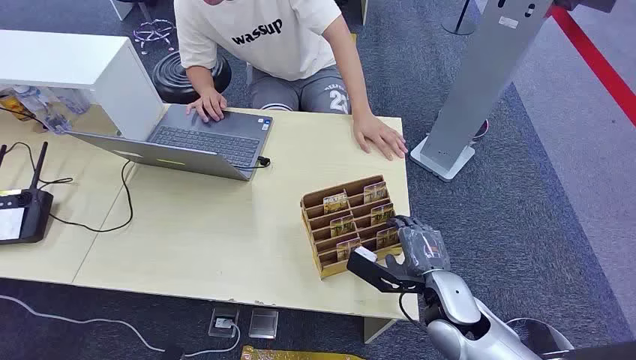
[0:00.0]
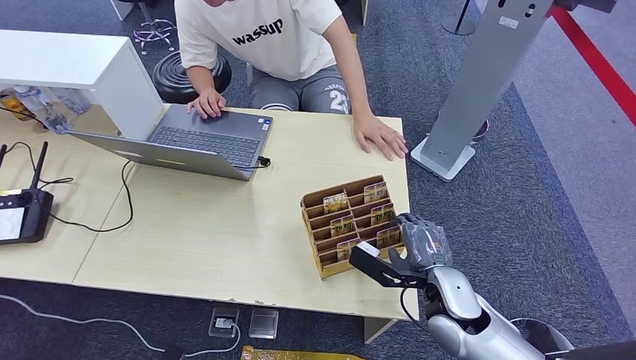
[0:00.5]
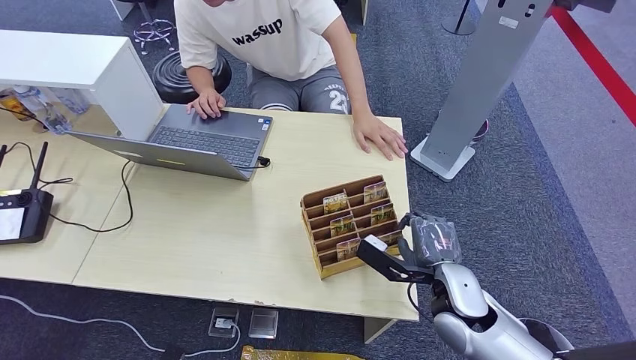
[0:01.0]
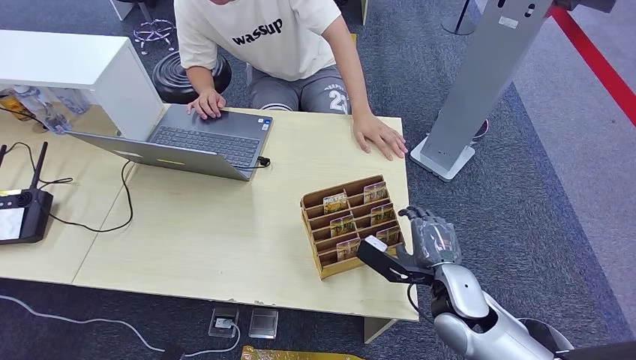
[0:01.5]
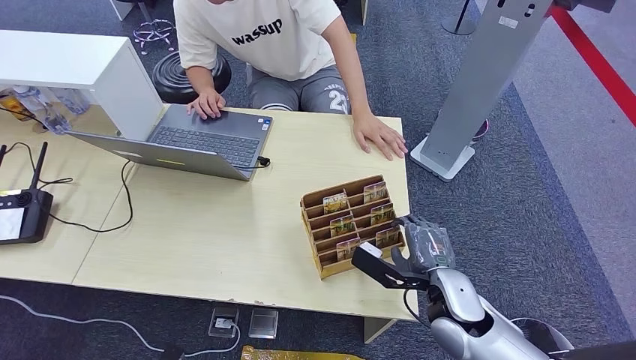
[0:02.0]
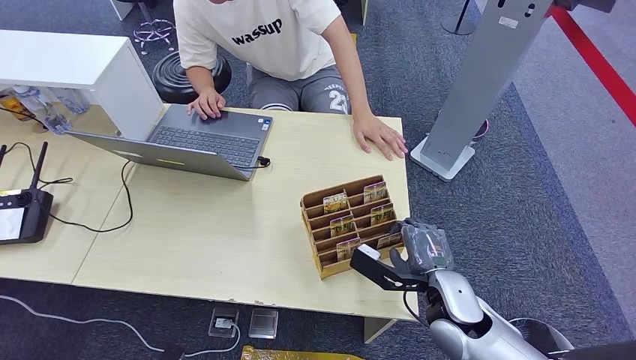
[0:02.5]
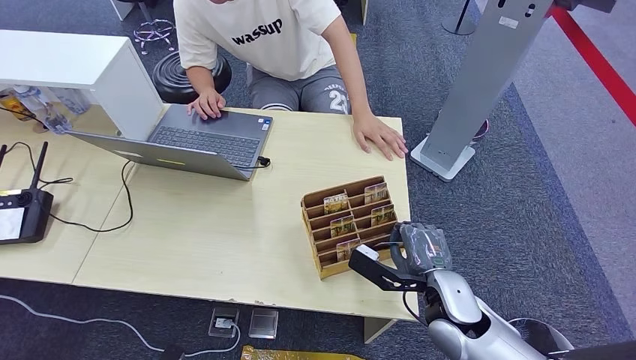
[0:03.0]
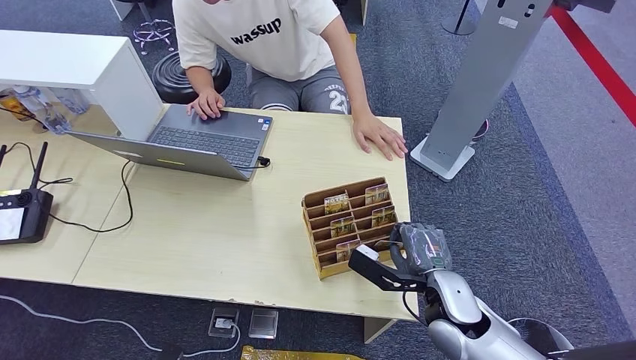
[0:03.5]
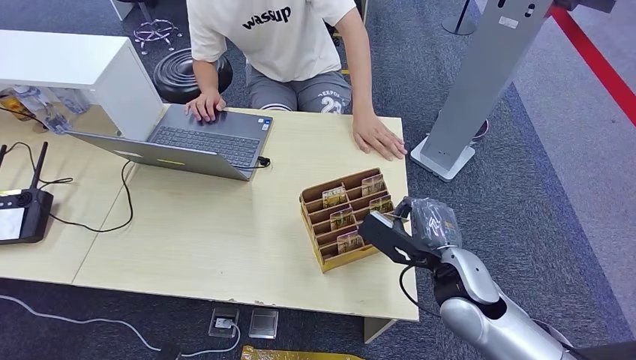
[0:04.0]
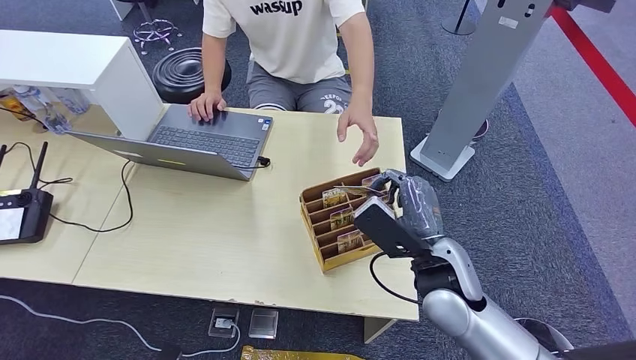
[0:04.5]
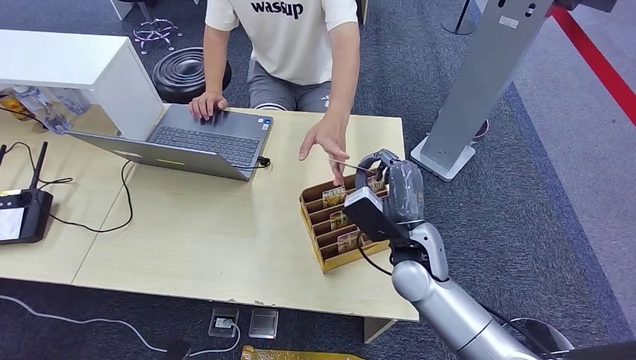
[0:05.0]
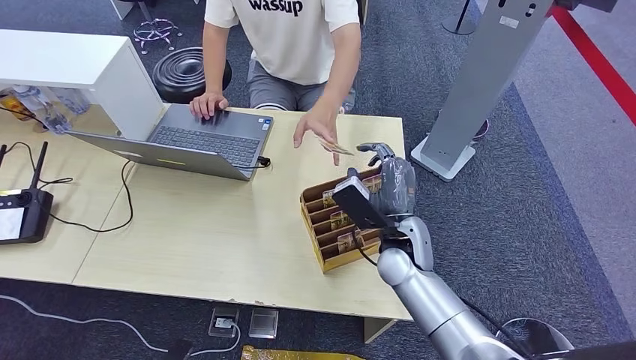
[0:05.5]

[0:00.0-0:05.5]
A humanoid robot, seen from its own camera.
Step, 0:00.0 to 0:04.0: Pick up the room card from the card holder.
Step, 0:04.5 to 0:05.5: Hand the room card to the target.
0:02.0 to 0:03.5: Neither hand changes place.
0:03.5 to 0:05.5: The right hand heads forward and to the left, covering approximately 10 cm.

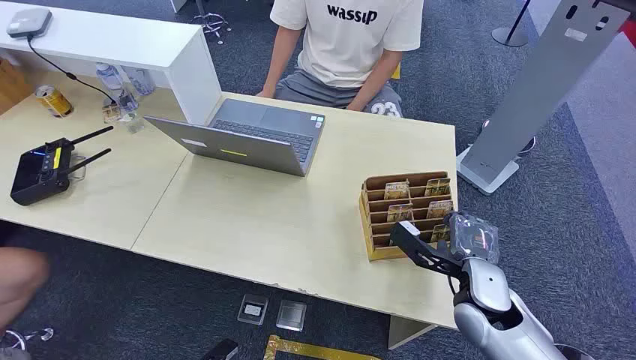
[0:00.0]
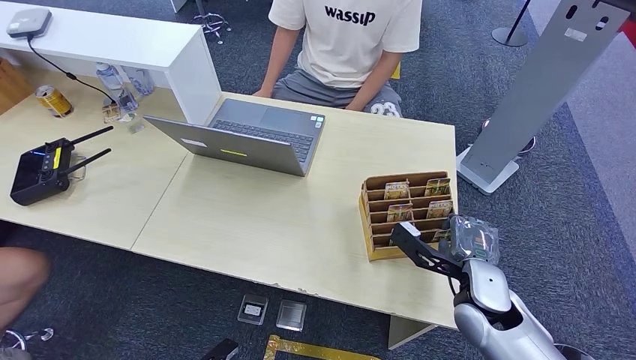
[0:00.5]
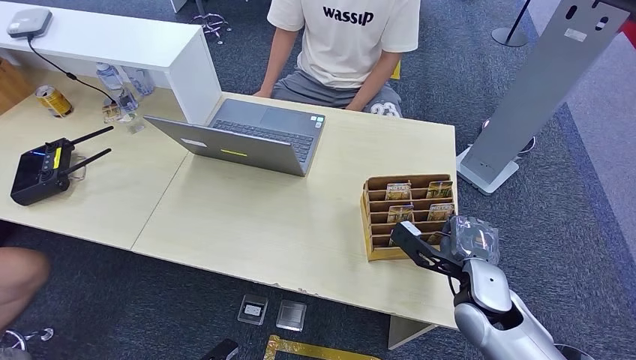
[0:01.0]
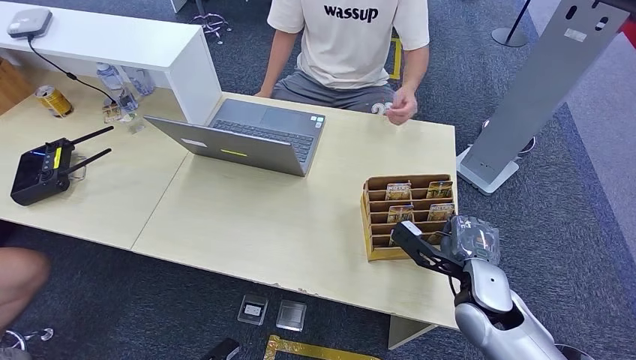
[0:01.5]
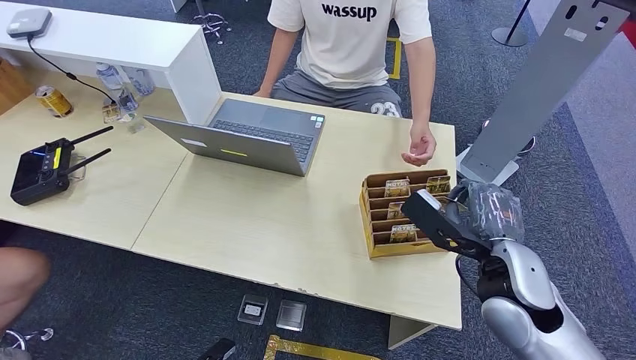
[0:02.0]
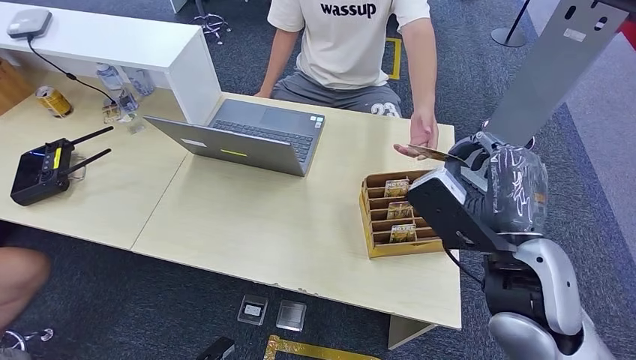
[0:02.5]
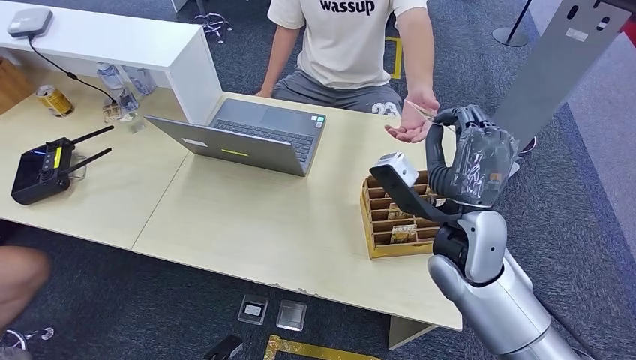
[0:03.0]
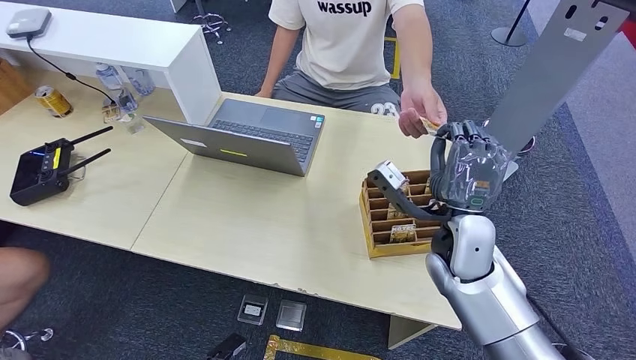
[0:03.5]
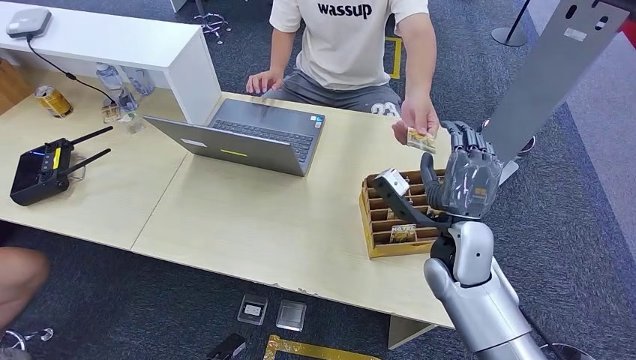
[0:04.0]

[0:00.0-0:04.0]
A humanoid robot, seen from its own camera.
Step, 0:00.0 to 0:01.5: Pick up the room card from the card holder.
Step, 0:02.5 to 0:04.0: Hand the room card to the target.
0:02.0 to 0:04.0: The right hand moves to the left, some 5 cm, and reaches roughly 10 cm upward, then returns.
